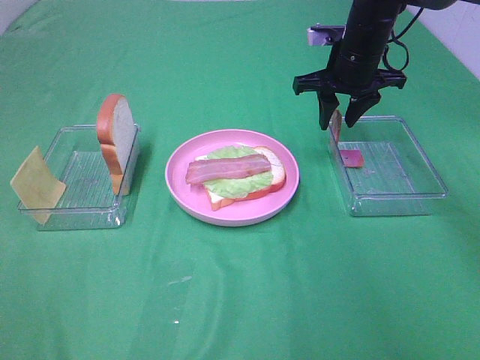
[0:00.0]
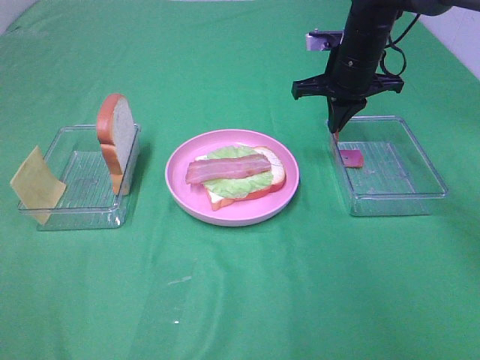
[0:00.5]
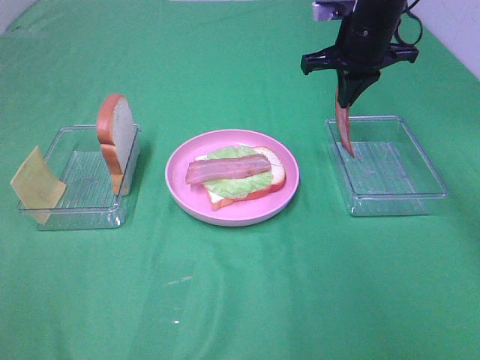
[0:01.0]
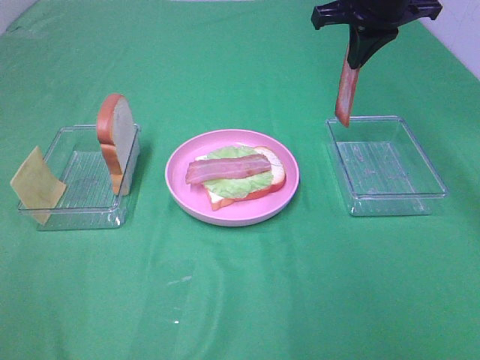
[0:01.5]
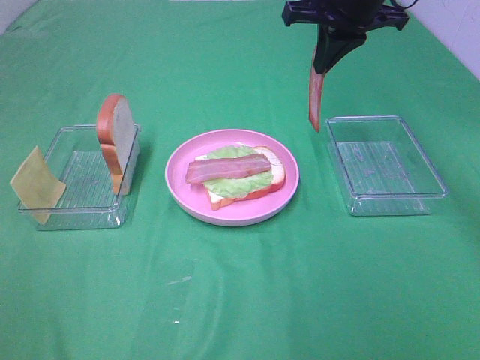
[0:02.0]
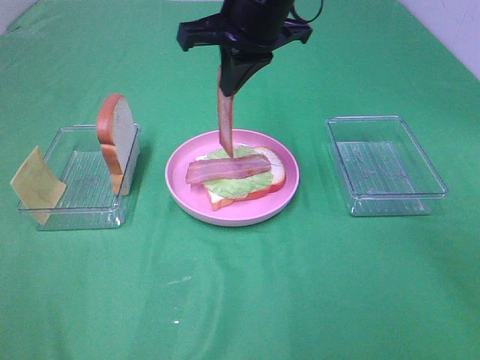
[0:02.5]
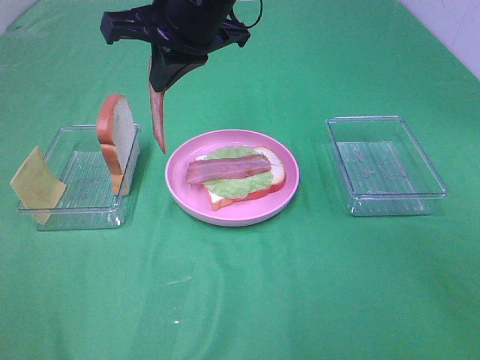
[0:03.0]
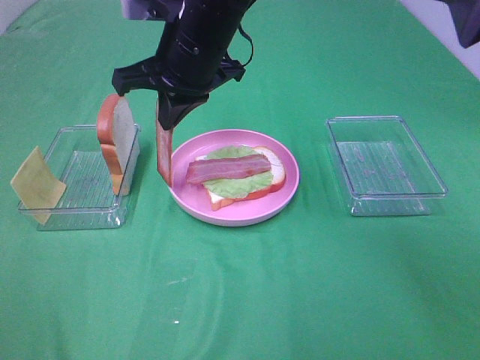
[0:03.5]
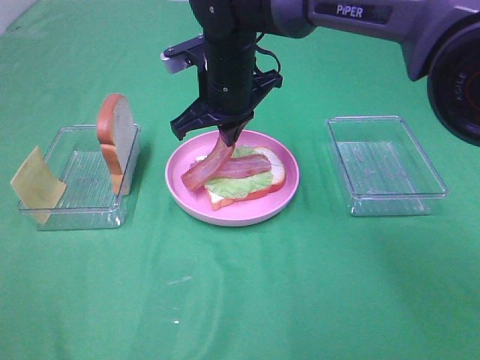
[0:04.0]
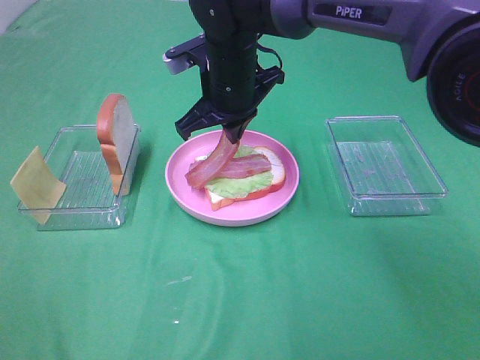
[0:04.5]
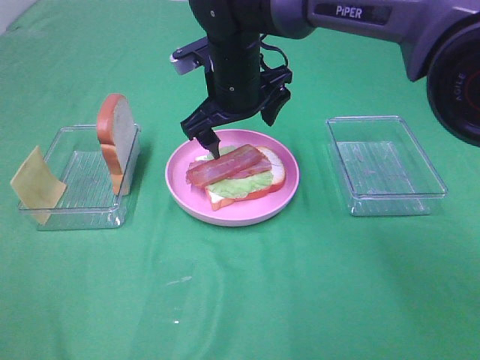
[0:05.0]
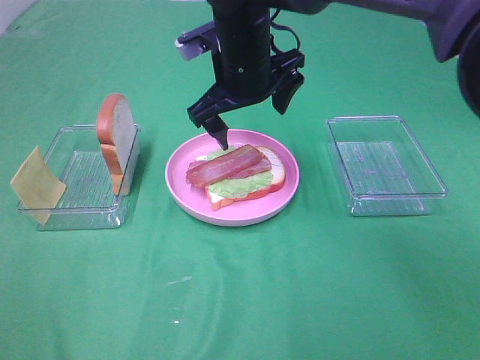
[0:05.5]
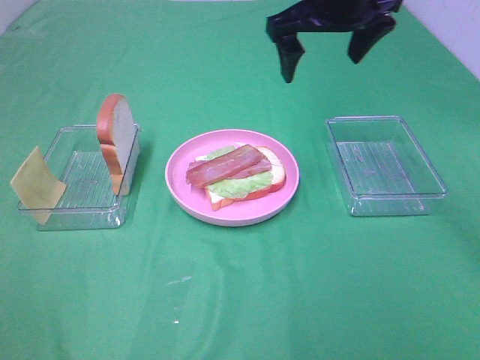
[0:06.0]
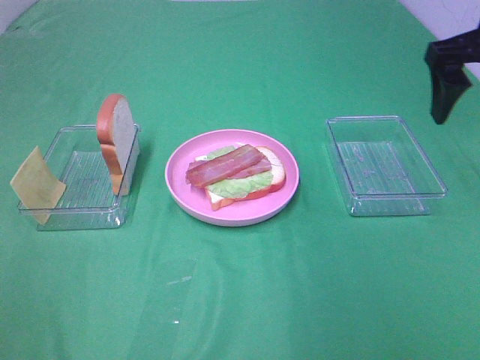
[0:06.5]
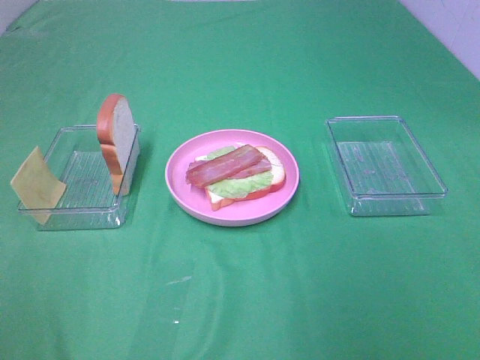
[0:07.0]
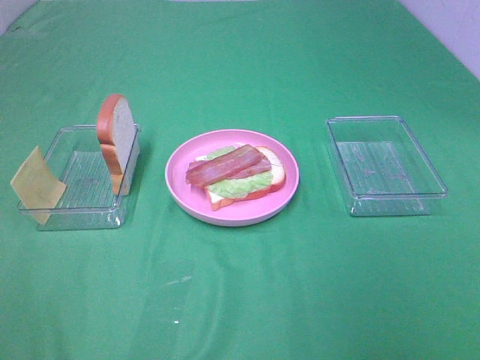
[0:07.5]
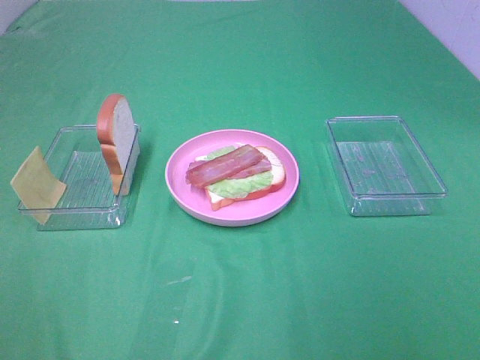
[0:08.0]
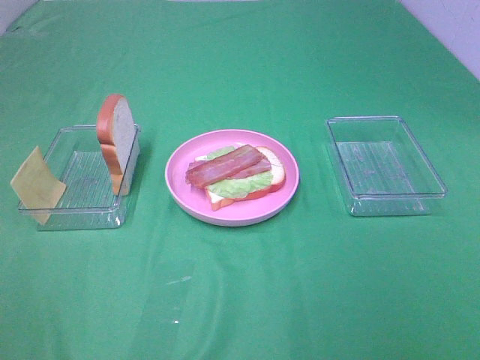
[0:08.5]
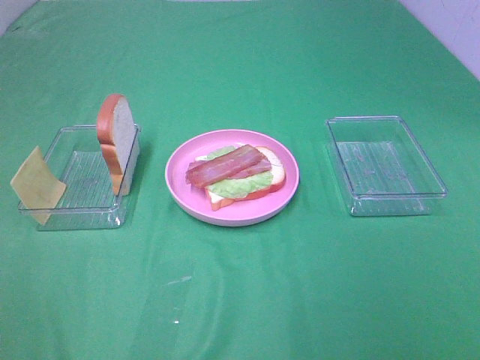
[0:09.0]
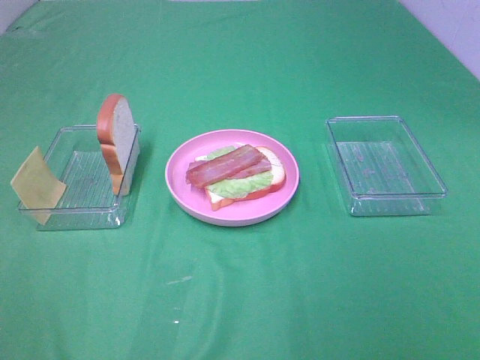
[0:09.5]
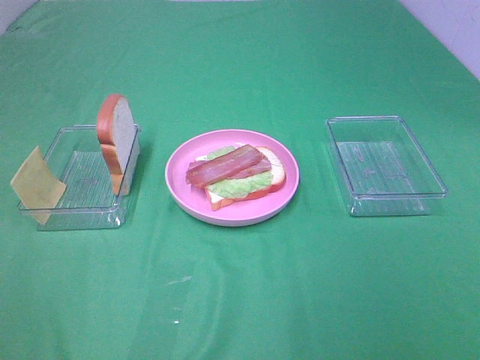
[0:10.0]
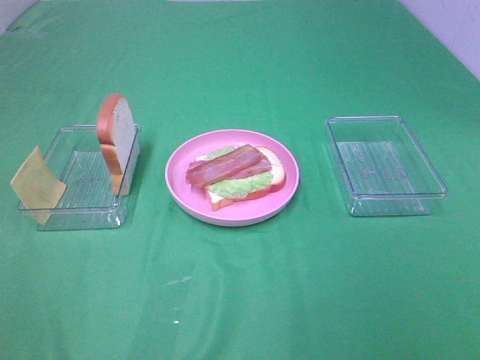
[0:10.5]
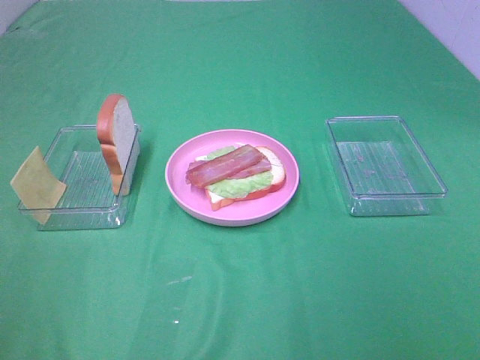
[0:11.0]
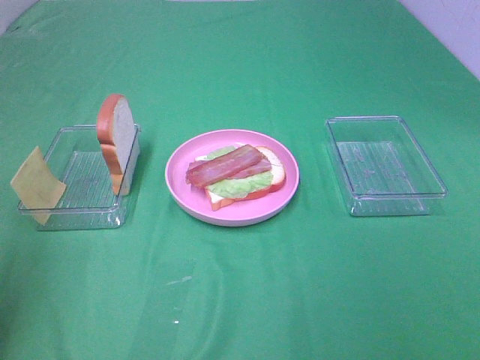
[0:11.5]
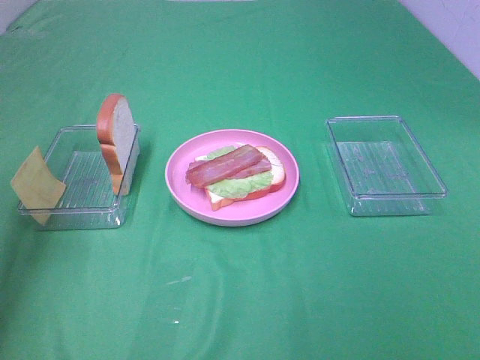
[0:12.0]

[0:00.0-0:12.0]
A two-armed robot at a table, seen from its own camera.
Task of the whole recording: Make sandwiches.
Step, 0:00.5 to 0:05.0: Right hand:place bacon on bacon.
0:00.0 to 0:02.0: The right gripper moves upward, about 10 cm, and closes.
0:02.0 to 0:04.0: The right gripper heads to the left and downward, covering approximately 20 cm.
0:04.0 to 0:06.0: The right gripper travels to the right and upward by about 15 cm, and opens.
0:06.0 to 0:08.0: The right gripper heads backward and to the right, covering roughly 40 cm.
0:10.0 to 0:12.0: The left gripper shifts roughly 30 cm forward.

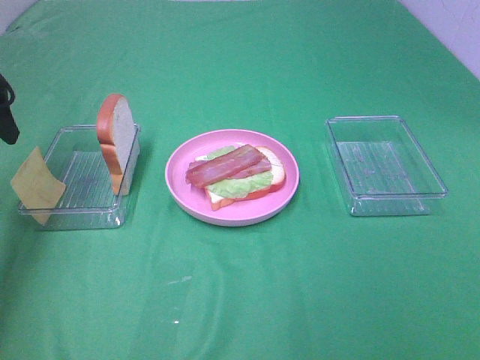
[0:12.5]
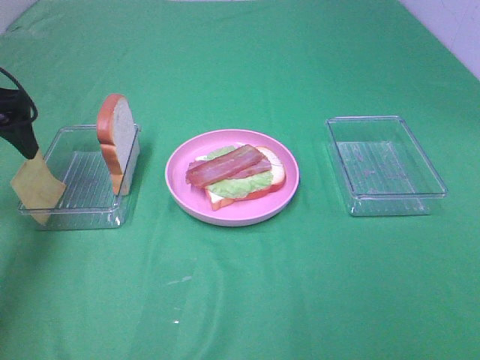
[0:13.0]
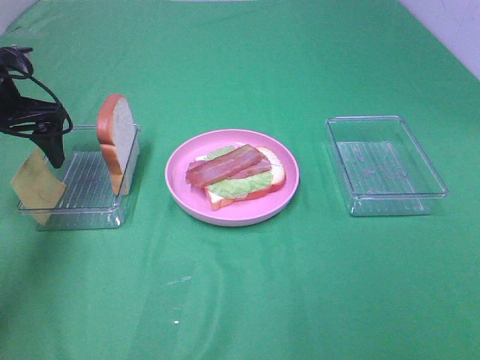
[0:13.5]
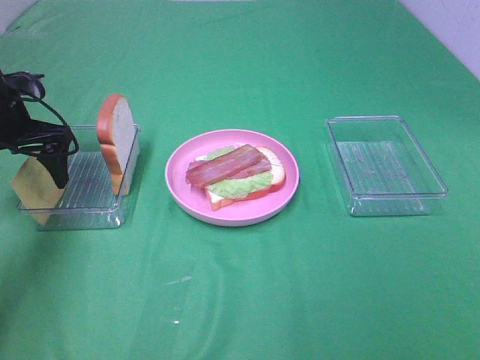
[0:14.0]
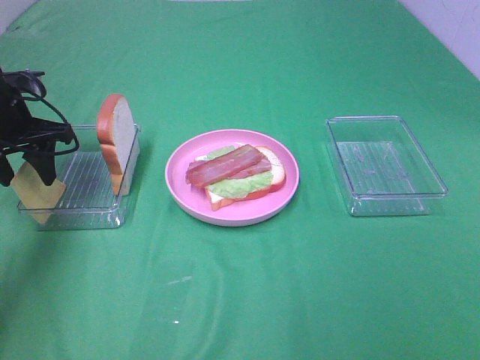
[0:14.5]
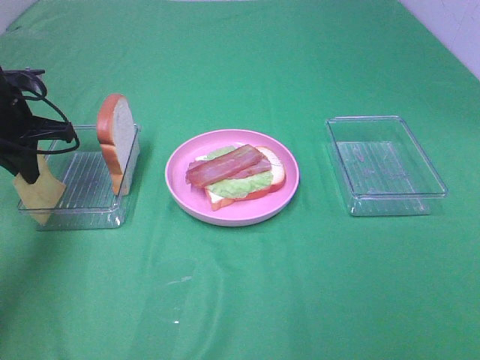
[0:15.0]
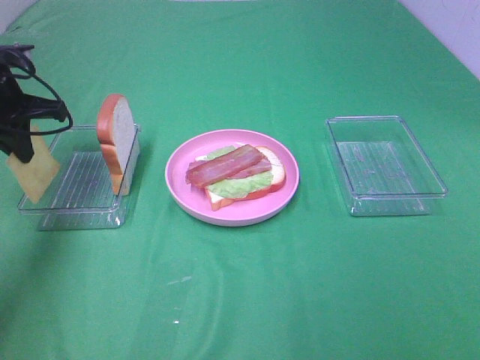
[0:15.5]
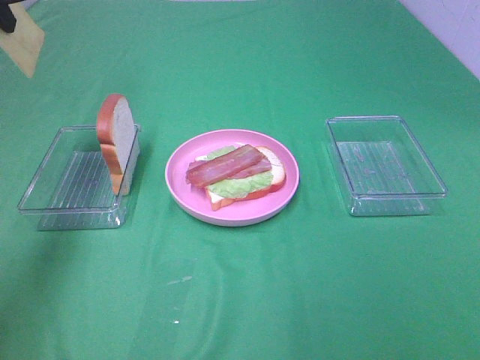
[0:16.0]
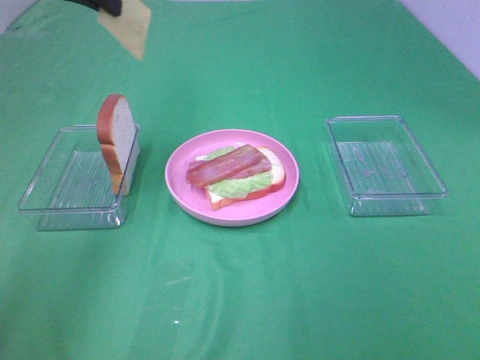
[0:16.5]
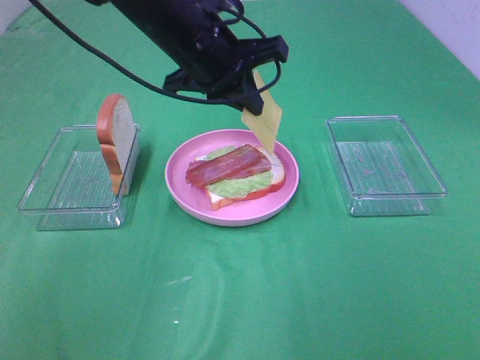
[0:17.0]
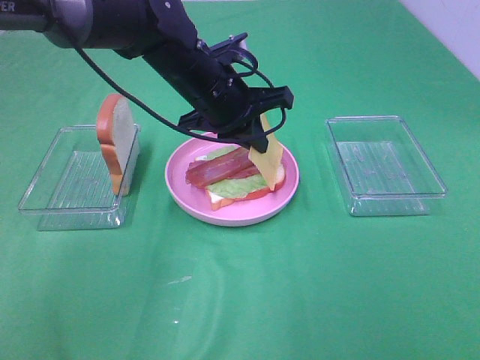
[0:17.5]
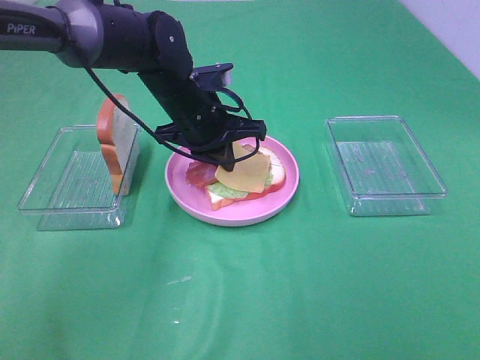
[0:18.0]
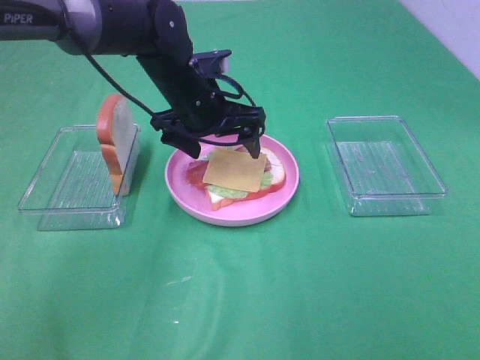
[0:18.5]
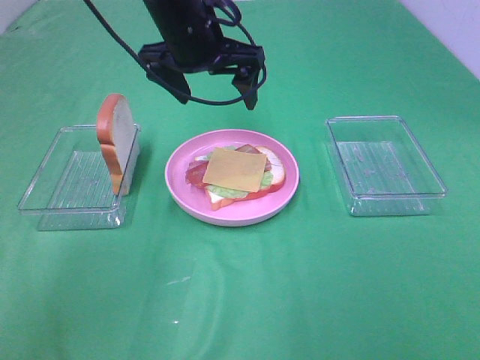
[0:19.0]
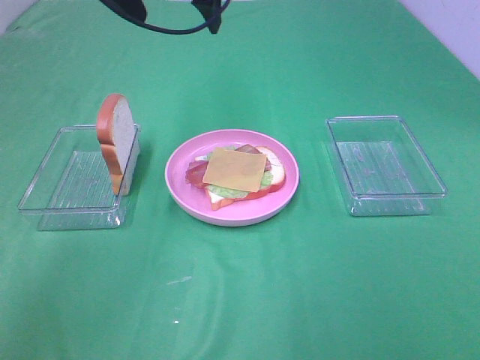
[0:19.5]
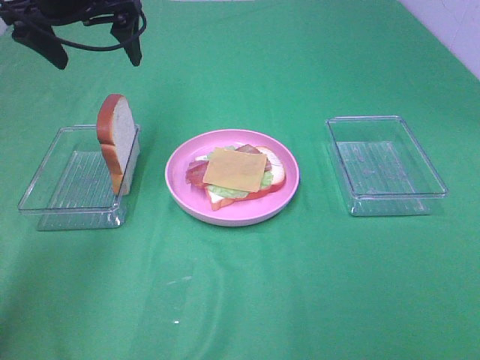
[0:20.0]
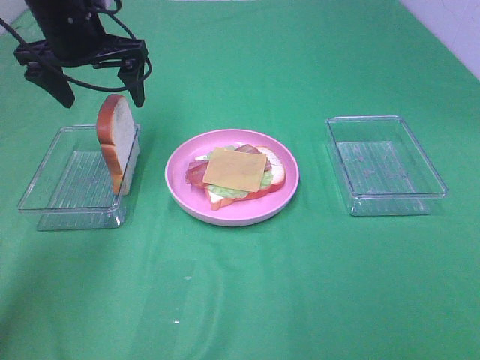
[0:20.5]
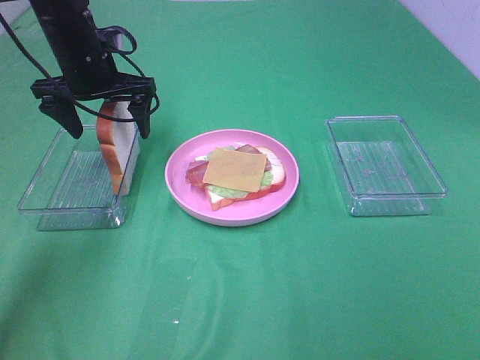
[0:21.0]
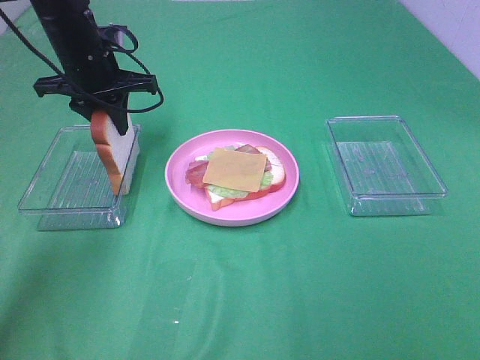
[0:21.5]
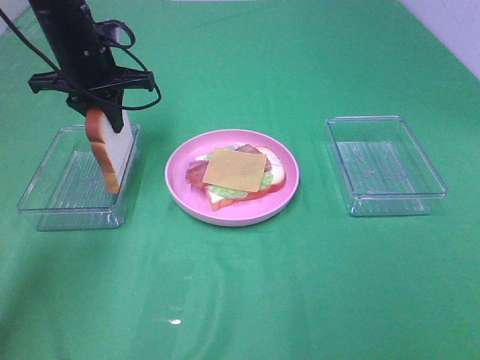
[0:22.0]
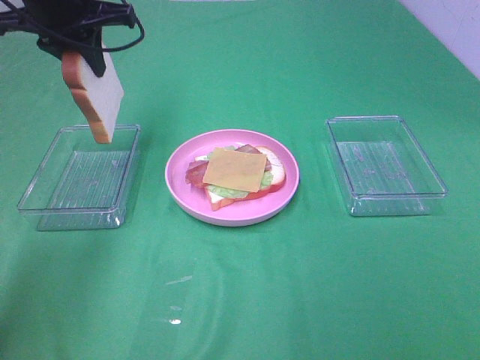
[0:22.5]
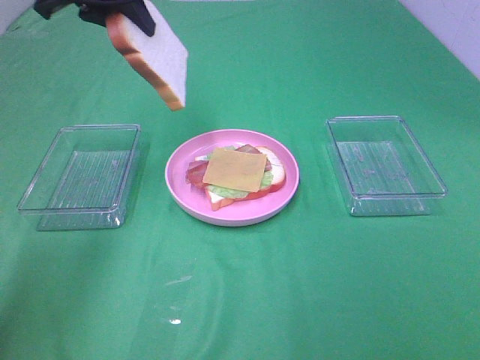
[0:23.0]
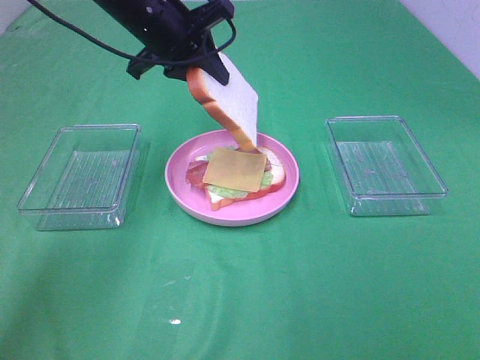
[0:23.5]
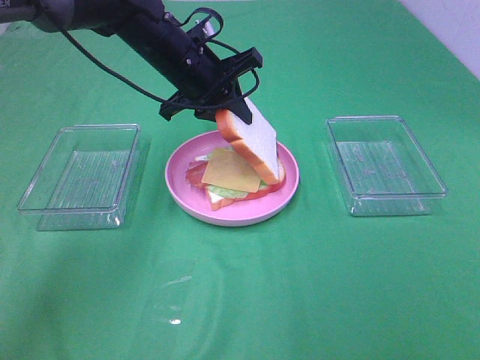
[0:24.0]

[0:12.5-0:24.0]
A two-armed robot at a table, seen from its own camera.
Task of the whole recording: Make sandwiches.
Step, 0:12.5 to 0:15.0: Left hand:grab the cheese slice.
Step, 0:15.5 to 0:18.0: Left hand:place the cheese slice on top of the bacon.
Step, 0:18.5 to 0:21.5: Left hand:grab the bread slice.
0:12.5 to 0:14.5: The left gripper heads downward, covering some 10 cm, and closes.
0:14.5 to 0:16.5: The left gripper travels upward and to the right by about 20 cm, and closes its fingers.
0:16.5 to 0:18.5: The left gripper travels downward and to the right by about 20 cm, and opens.
0:18.5 to 0:20.0: The left gripper travels to the left and upward by roughly 20 cm.
0:20.0 to 0:22.0: The left gripper travels downward by roughly 10 cm, and closes its fingers.
0:22.0 to 0:24.0: The left gripper heads to the right, covering some 10 cm, and moves roughly 10 cm upward and comes back.

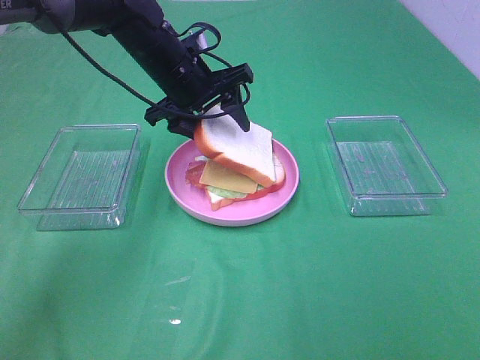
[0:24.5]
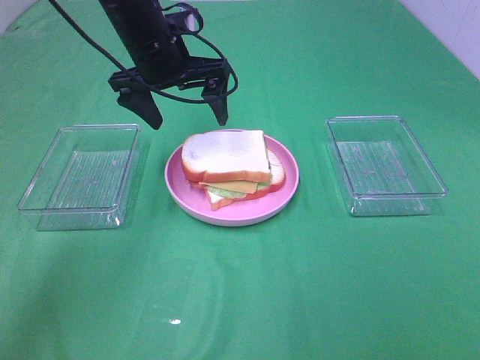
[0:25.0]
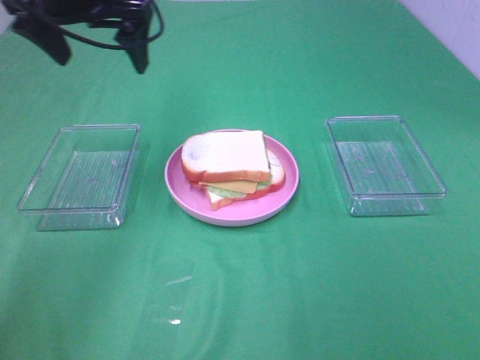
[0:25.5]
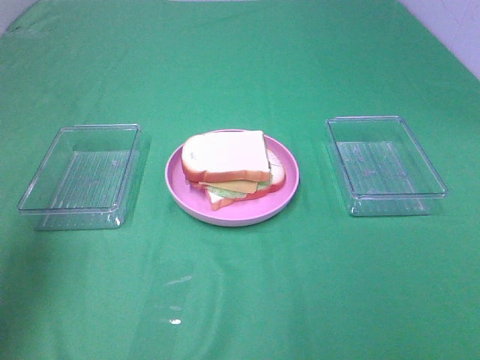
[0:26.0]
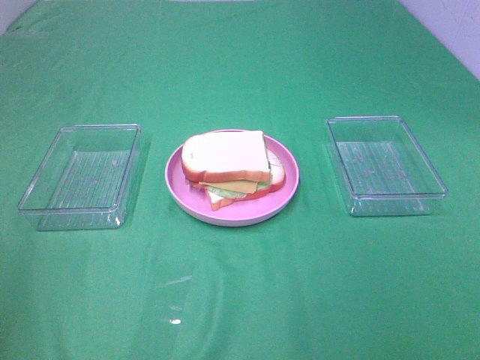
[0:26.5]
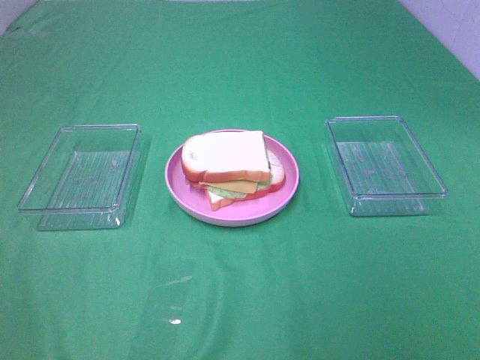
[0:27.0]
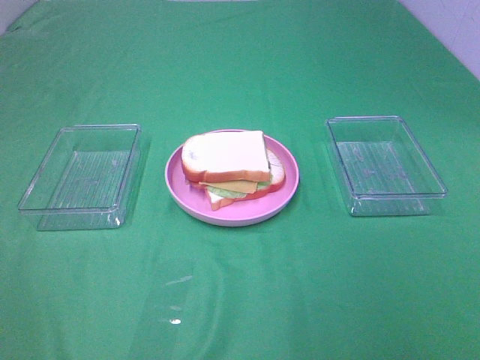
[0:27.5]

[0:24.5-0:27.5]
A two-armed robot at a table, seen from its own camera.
Task of the whole recording: Make sandwiches.
0:24.5 to 0:26.0: The left gripper travels to the left, backward and upward by approximately 40 cm.
0:26.0 to 0:27.5: The left gripper moves backward, roughly 20 cm.
